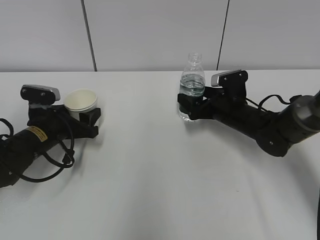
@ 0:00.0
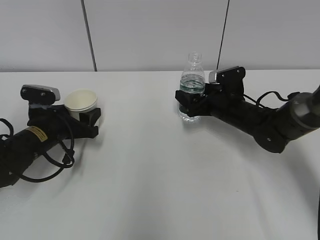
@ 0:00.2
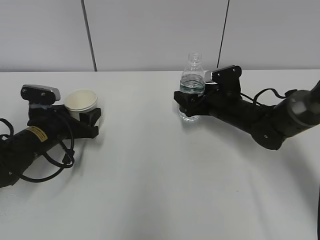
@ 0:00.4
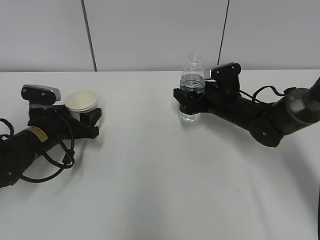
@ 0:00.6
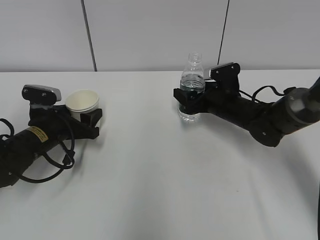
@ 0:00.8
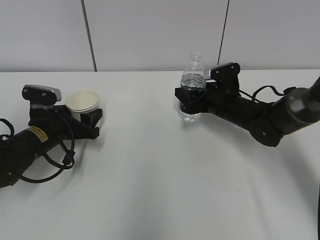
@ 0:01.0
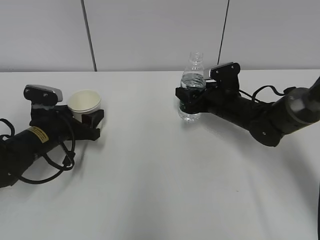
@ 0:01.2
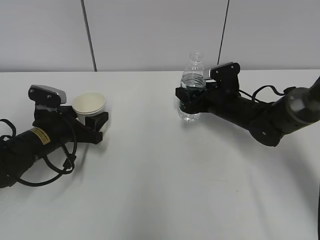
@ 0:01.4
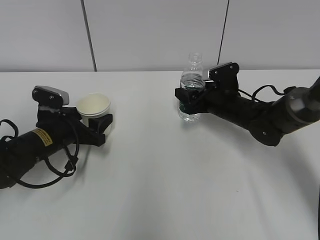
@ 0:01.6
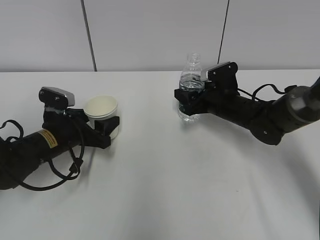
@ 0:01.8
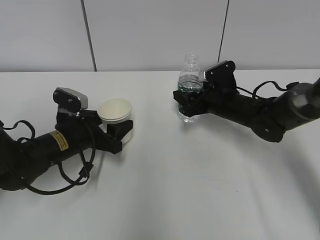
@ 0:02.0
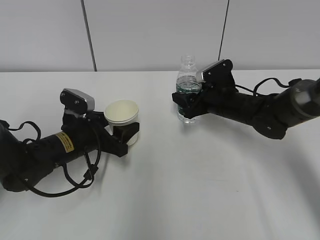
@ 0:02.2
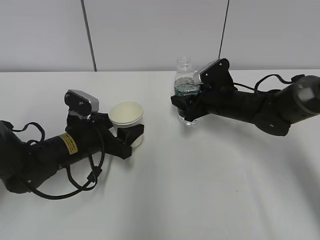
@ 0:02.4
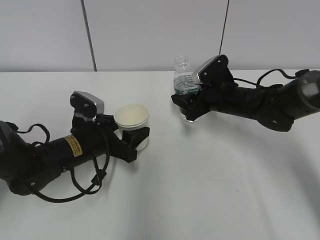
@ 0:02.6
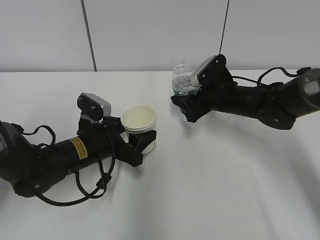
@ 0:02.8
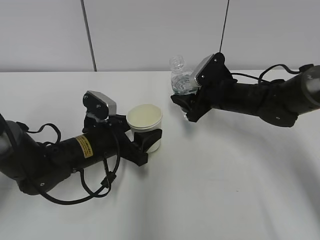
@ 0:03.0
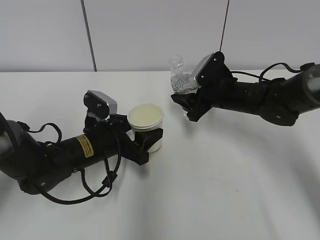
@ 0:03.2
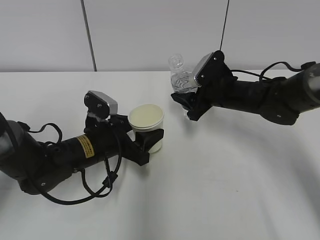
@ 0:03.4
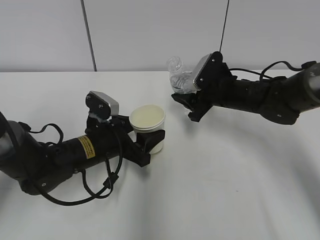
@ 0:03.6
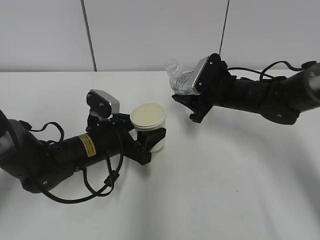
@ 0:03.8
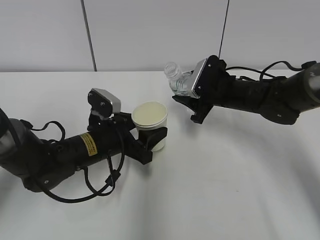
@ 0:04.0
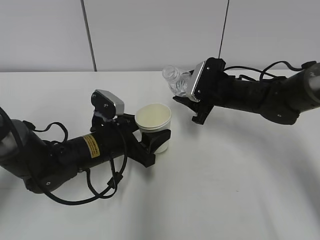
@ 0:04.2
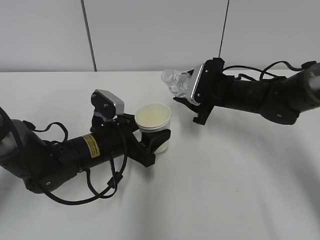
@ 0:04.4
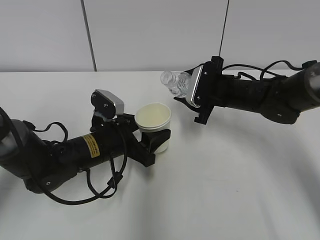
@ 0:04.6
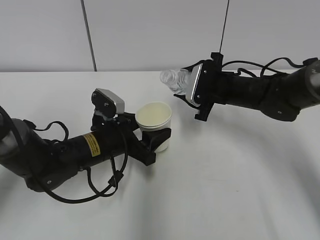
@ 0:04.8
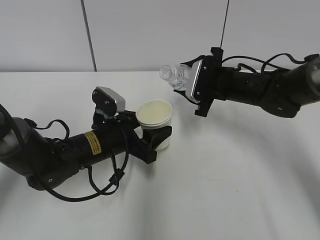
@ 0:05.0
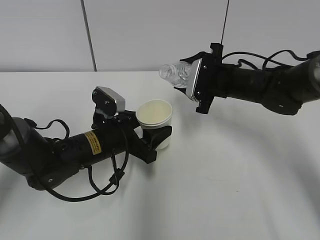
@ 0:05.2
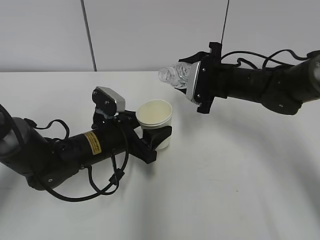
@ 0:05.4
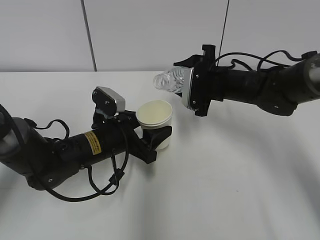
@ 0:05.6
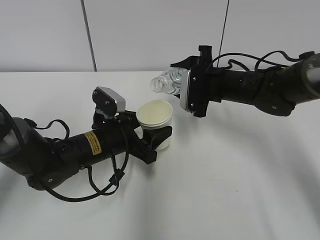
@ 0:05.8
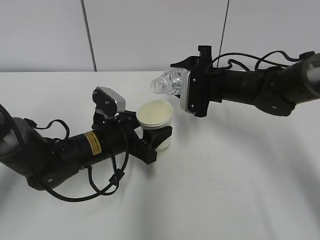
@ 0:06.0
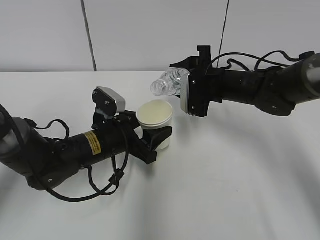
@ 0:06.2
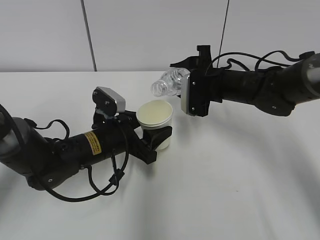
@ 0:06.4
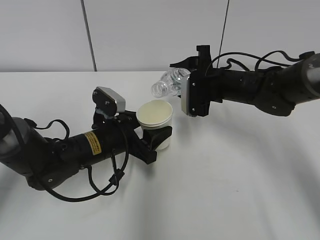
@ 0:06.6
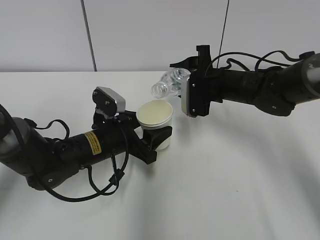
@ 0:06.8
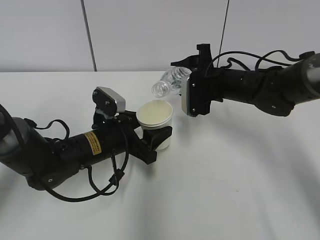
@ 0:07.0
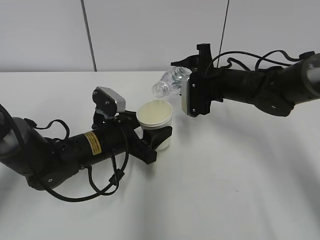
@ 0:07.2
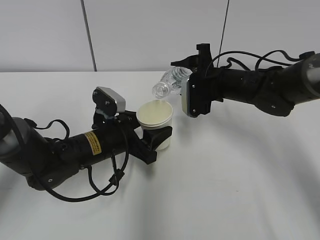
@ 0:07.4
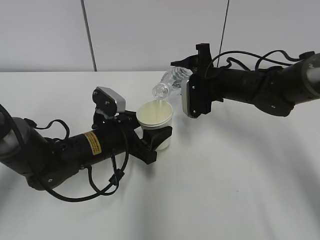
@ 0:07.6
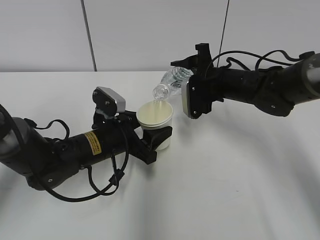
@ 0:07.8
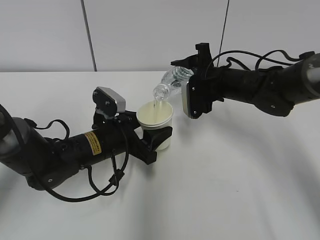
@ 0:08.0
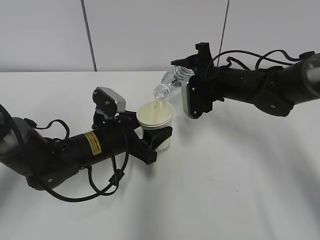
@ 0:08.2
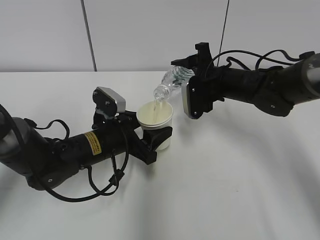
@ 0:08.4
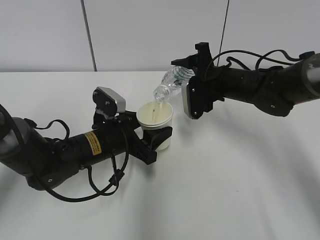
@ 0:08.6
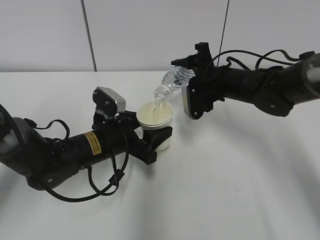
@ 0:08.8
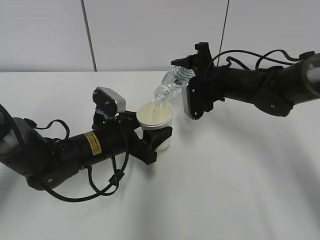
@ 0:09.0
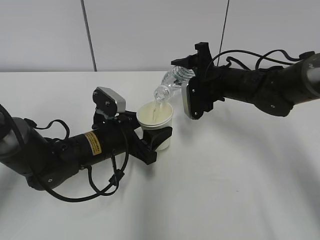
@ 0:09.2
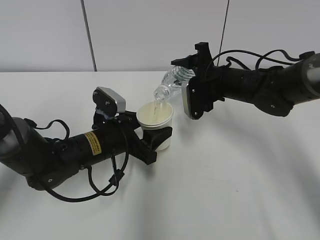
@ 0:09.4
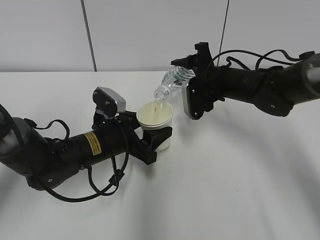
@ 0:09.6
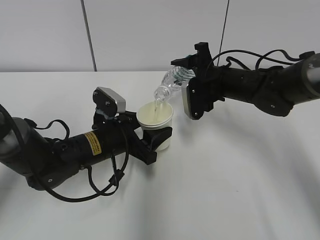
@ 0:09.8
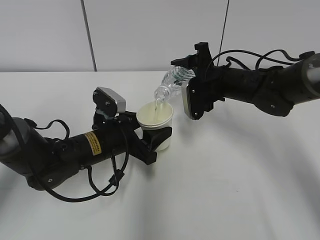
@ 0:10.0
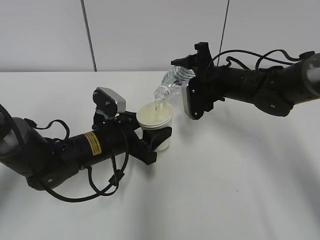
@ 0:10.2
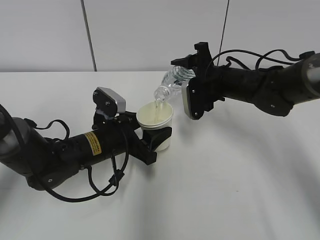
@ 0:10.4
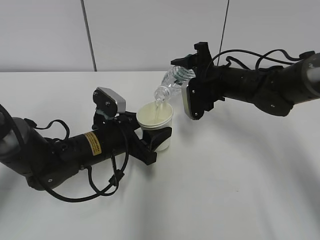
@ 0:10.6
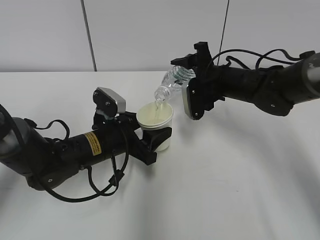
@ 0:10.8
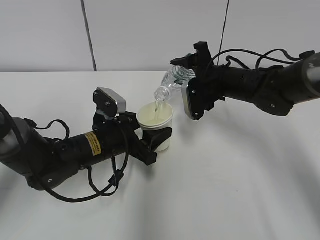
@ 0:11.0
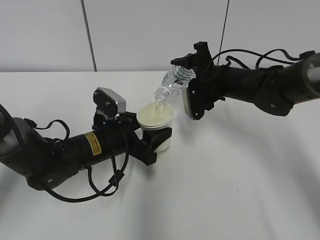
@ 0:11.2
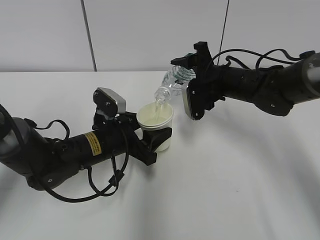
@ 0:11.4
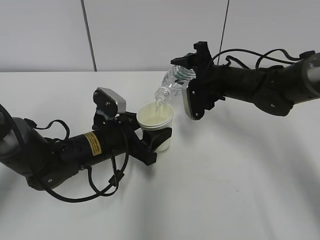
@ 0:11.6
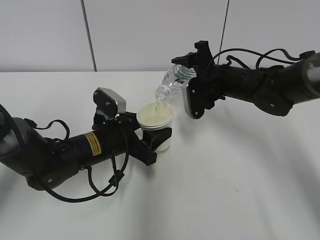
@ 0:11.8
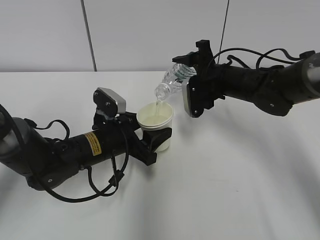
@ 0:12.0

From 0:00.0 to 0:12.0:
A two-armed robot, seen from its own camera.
Step, from 0:00.0 to 0:03.6: Lift the paper cup with the left hand.
Step, from 0:03.8 to 0:08.2: Fill water with the left hand.
Step, from 0:03.8 to 0:08.2: Pour water with the right hand.
From 0:00.0 to 0:01.6: The right gripper closes its fingers.
From 0:01.6 to 0:03.0: The left gripper travels to the right by approximately 10 cm.
From 0:06.0 to 0:09.0: The grippers stay close to where they were, moving slightly.
From 0:09.0 to 0:12.0: Both grippers stay put.

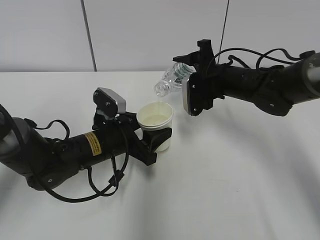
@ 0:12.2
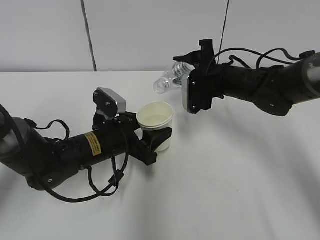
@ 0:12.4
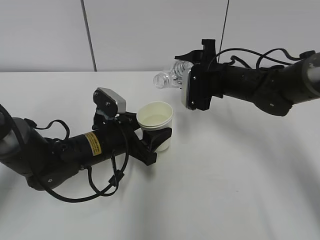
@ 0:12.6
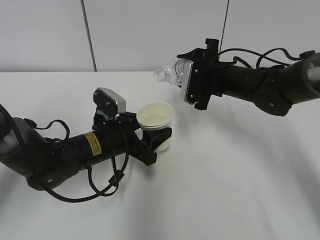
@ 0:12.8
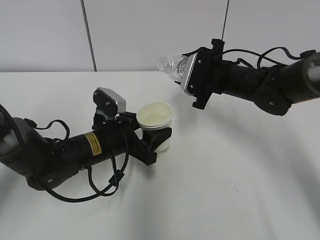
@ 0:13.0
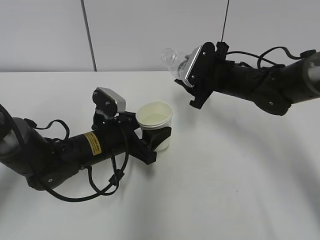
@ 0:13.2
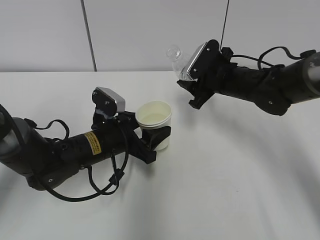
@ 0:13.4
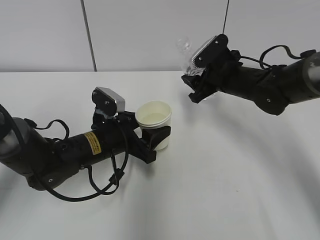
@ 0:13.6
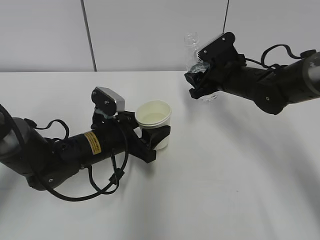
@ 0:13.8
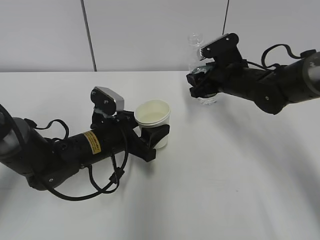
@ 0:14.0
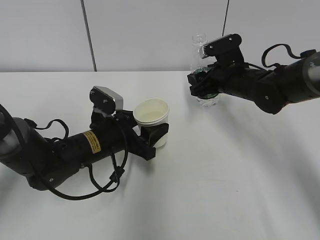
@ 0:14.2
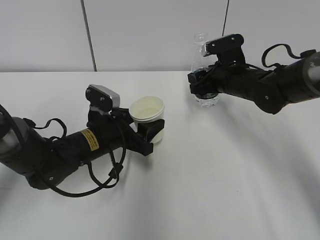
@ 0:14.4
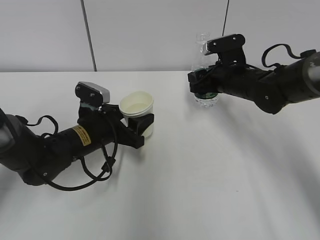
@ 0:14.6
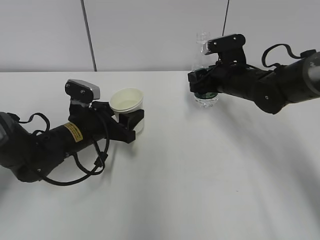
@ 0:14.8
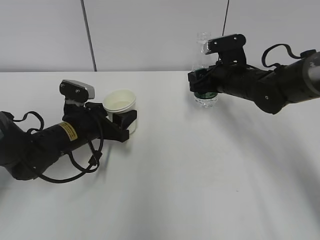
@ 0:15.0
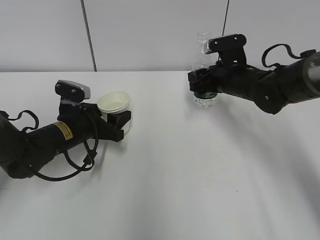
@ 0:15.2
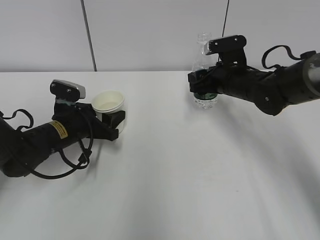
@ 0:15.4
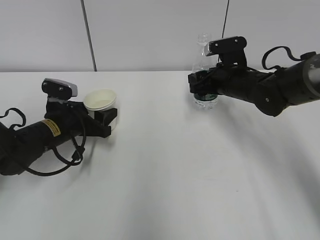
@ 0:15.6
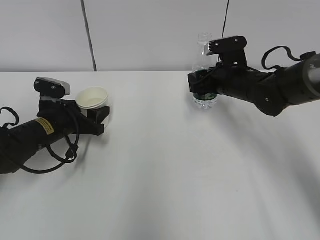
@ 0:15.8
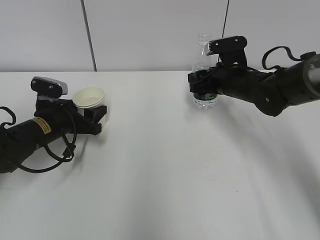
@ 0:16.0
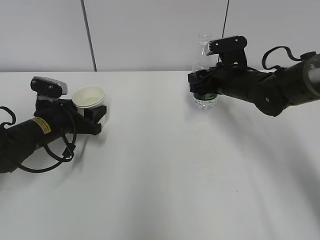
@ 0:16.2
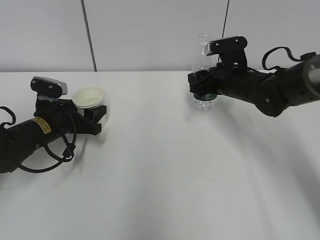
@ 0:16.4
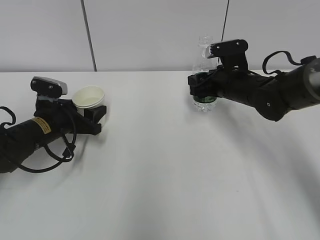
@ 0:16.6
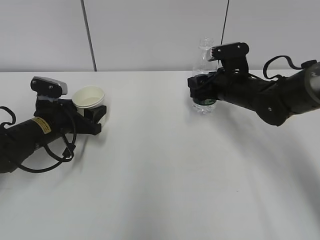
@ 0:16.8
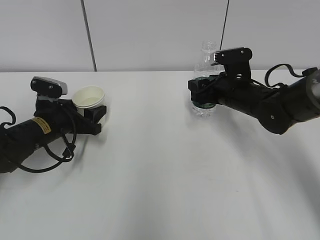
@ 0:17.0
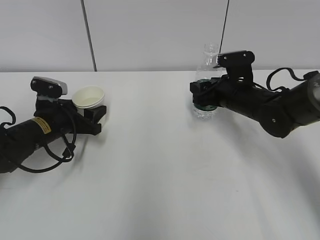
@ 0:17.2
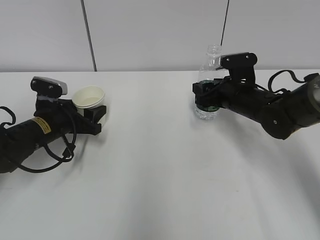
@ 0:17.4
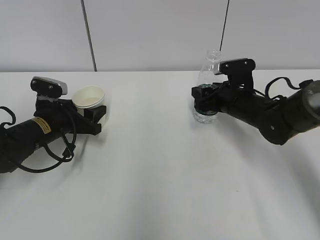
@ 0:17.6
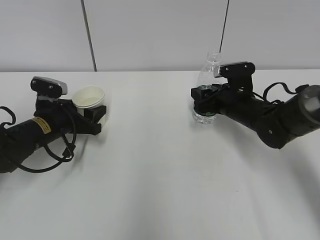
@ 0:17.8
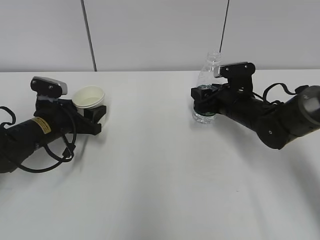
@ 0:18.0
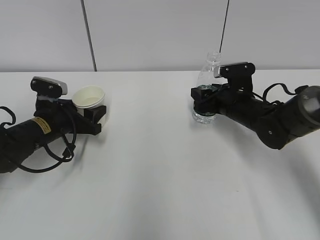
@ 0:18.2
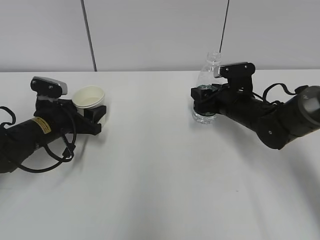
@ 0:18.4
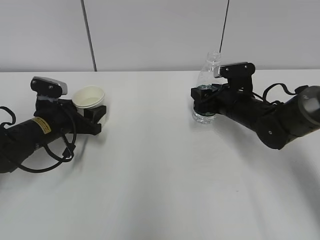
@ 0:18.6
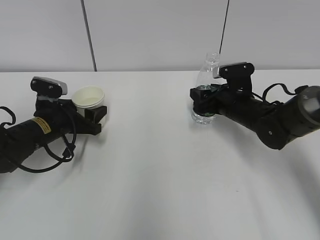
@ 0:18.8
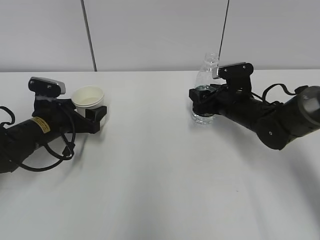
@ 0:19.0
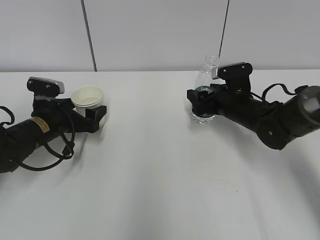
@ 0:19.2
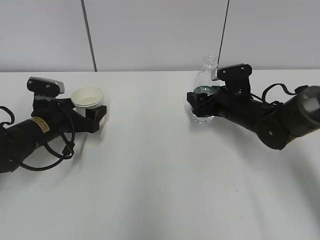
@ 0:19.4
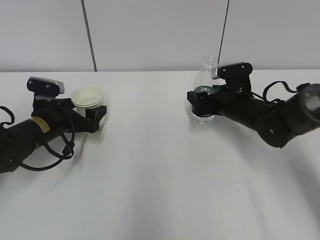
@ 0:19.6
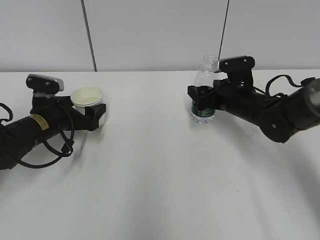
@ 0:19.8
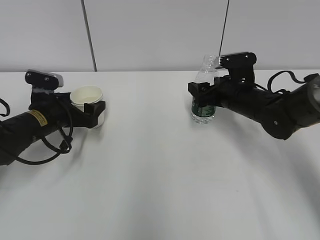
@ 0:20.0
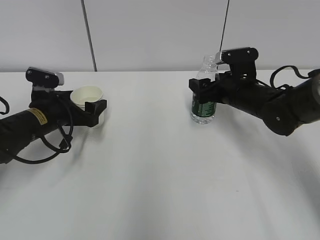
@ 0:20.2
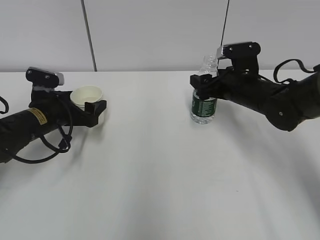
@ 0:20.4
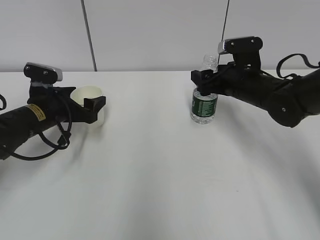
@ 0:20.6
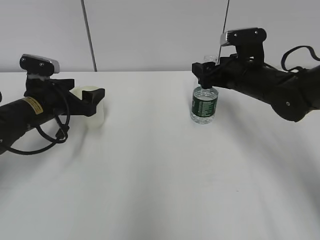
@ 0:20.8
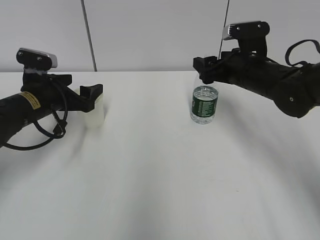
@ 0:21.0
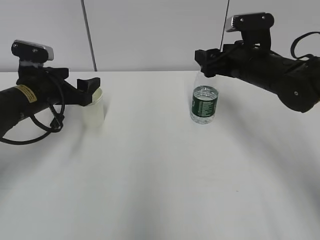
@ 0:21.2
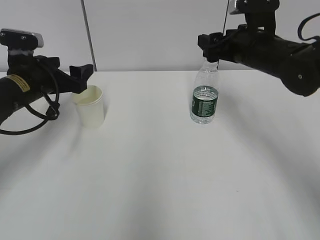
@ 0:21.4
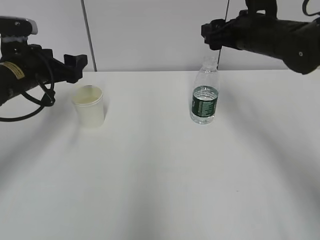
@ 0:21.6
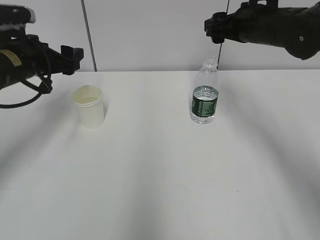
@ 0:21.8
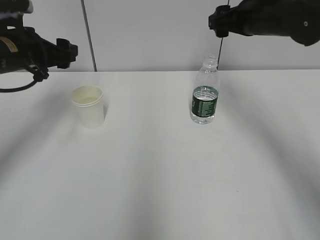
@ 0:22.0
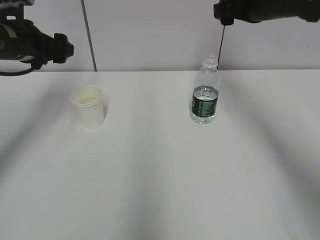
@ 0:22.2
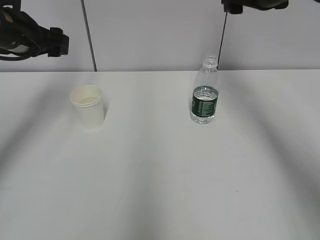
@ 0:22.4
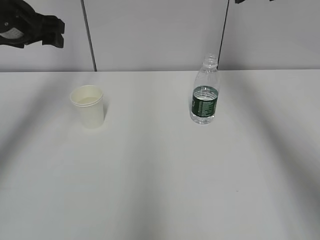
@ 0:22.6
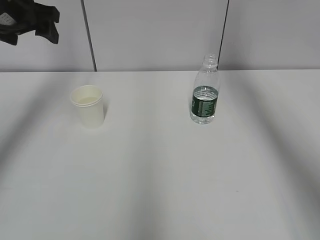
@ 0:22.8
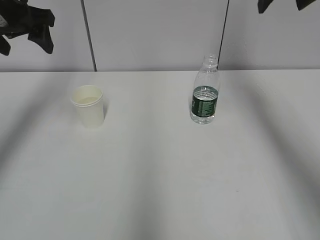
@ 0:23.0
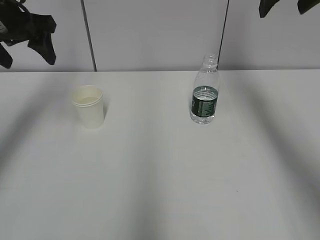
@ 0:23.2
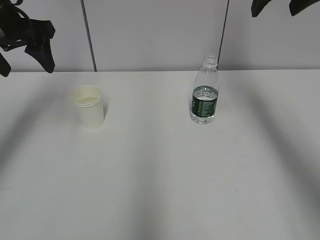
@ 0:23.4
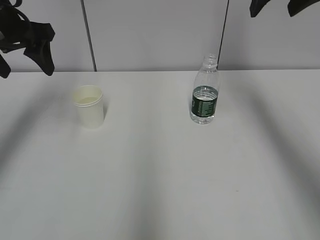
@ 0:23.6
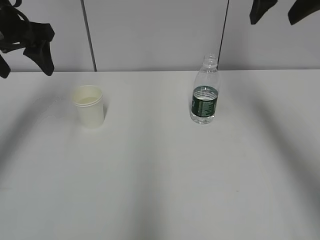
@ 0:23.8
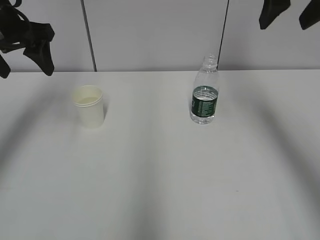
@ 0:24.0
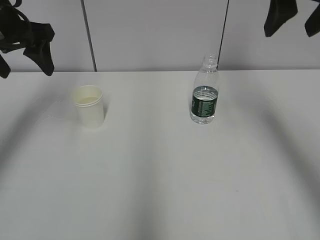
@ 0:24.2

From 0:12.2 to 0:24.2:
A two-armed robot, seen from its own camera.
Step, from 0:12.2 to 0:14.0: Place the water bottle with the right hand.
Step, from 0:14.2 to 0:14.6: Place the paper cup with the left hand.
From 0:13.8 to 0:15.2: The left gripper is displaced to the left by some 5 cm.
From 0:15.2 to 0:18.2: There are only small adjustments of the grippers.
From 0:18.2 to 0:19.8: The right gripper opens its fingers; the left gripper opens its fingers.
From 0:19.8 to 0:21.2: The grippers both shift upward by some 10 cm.
From 0:21.2 to 0:22.6: The two grippers go some 15 cm upward.
From 0:22.6 to 0:24.2: The right gripper is displaced backward by roughly 10 cm.
